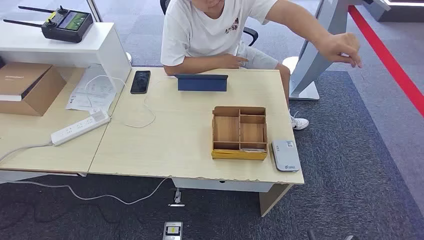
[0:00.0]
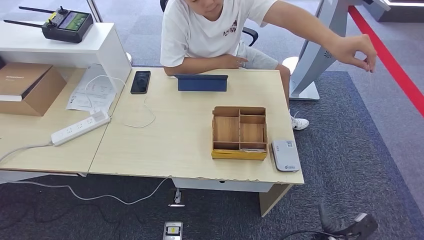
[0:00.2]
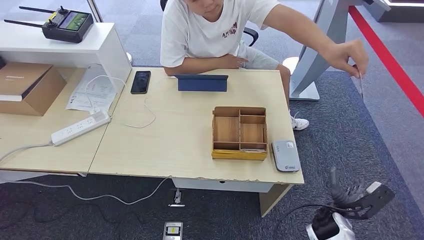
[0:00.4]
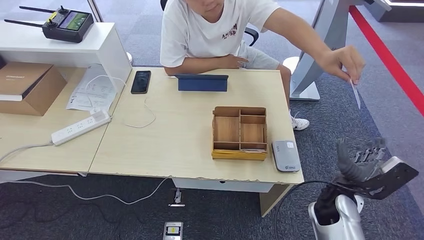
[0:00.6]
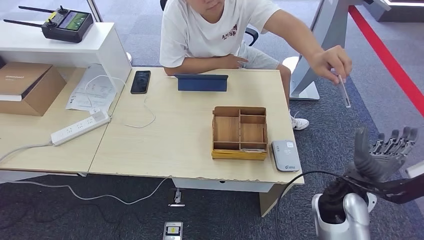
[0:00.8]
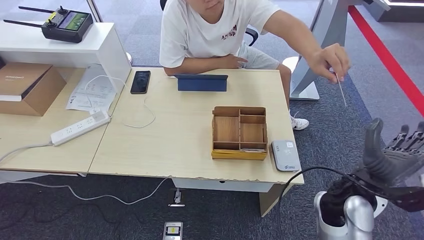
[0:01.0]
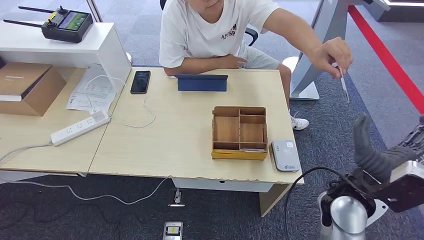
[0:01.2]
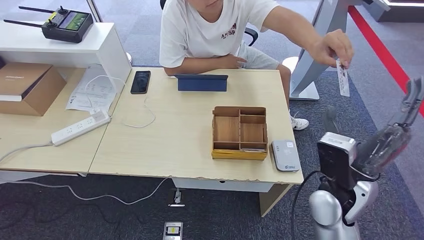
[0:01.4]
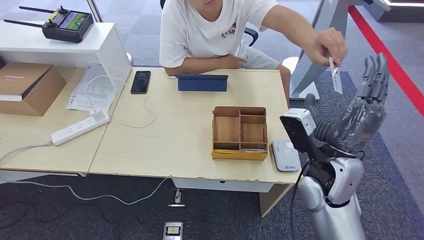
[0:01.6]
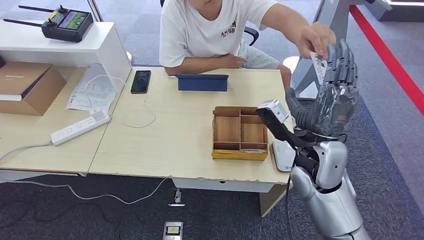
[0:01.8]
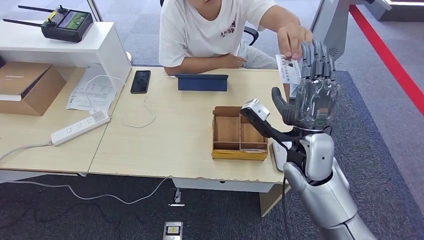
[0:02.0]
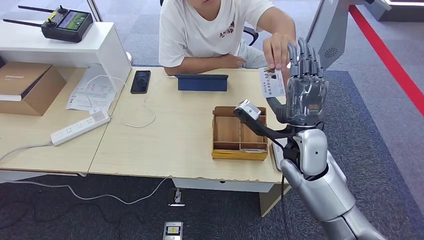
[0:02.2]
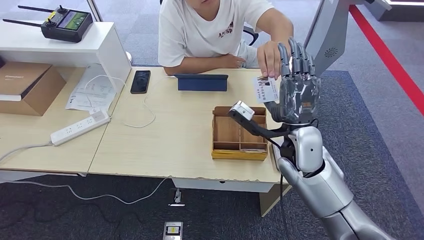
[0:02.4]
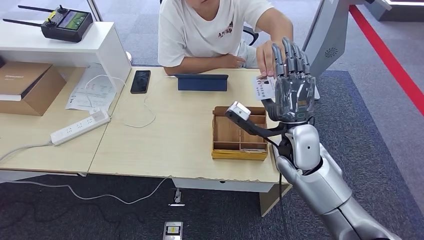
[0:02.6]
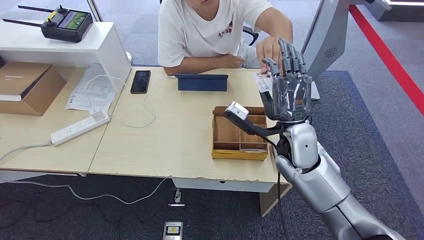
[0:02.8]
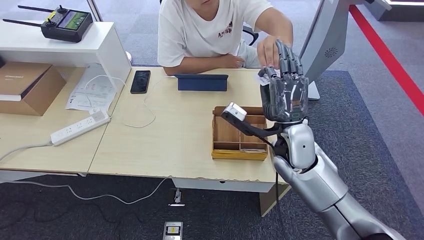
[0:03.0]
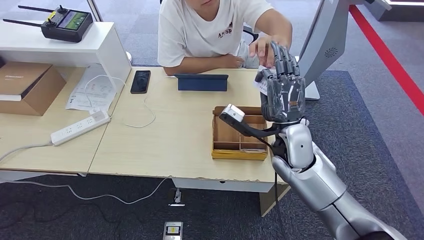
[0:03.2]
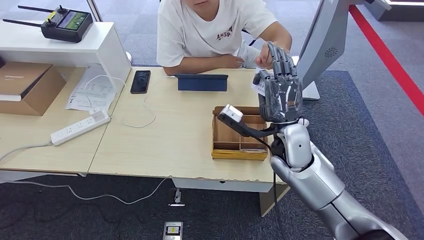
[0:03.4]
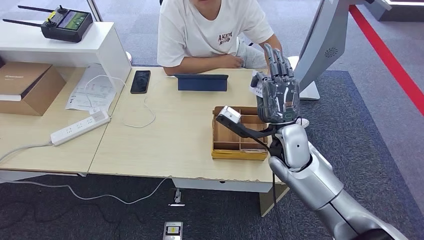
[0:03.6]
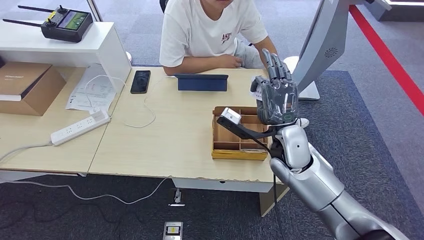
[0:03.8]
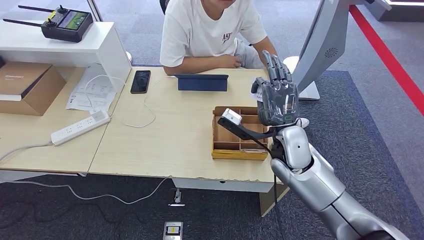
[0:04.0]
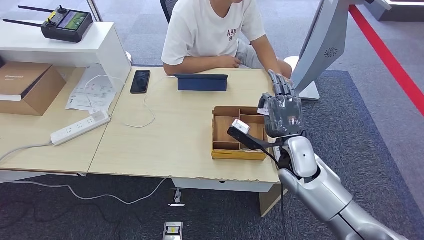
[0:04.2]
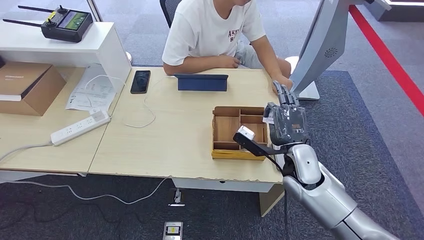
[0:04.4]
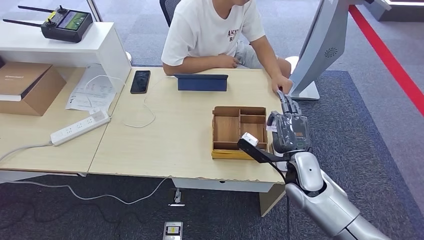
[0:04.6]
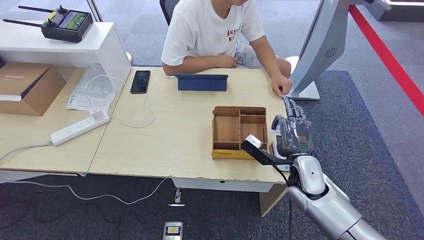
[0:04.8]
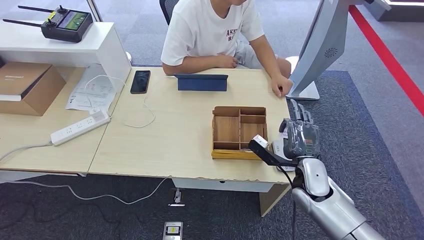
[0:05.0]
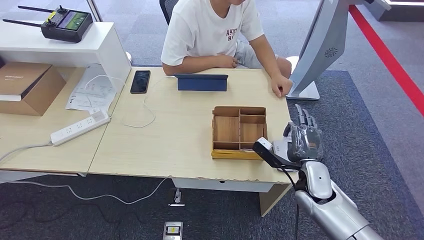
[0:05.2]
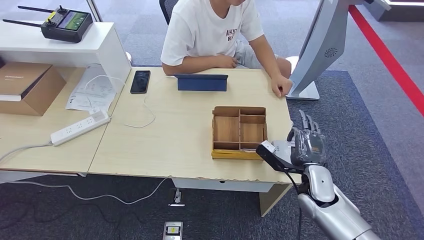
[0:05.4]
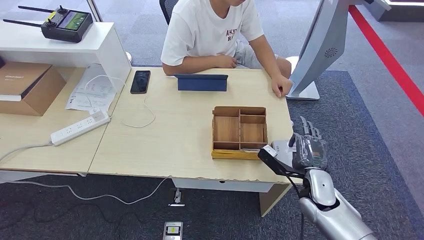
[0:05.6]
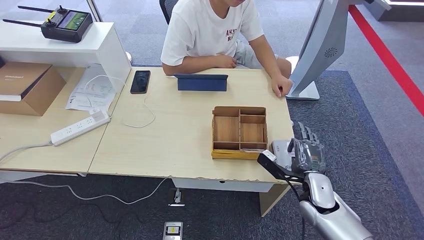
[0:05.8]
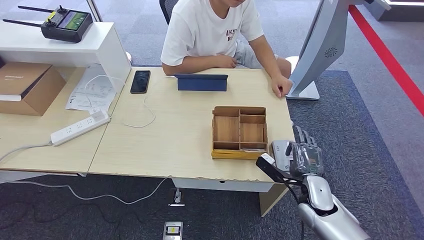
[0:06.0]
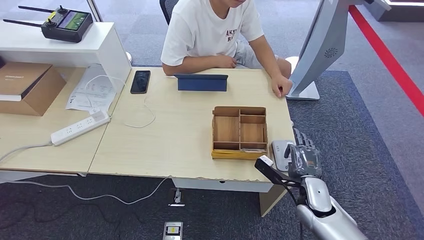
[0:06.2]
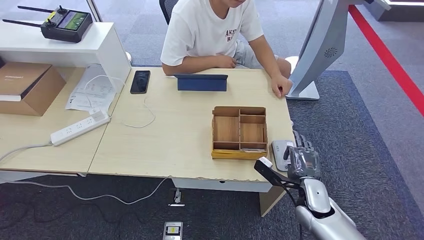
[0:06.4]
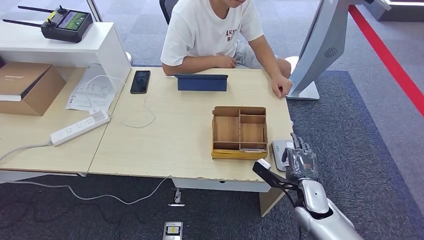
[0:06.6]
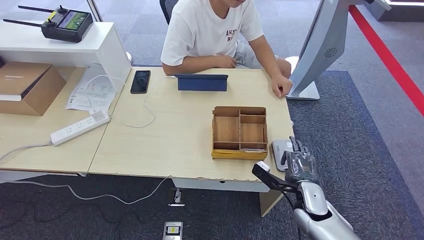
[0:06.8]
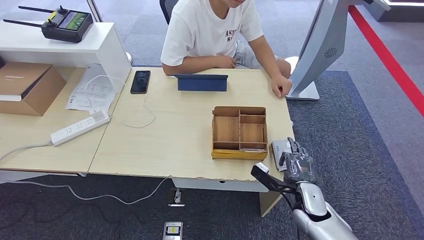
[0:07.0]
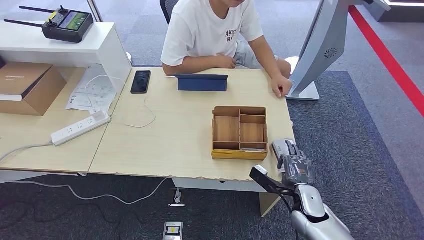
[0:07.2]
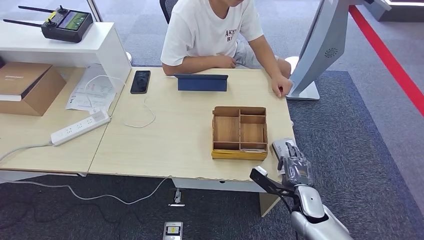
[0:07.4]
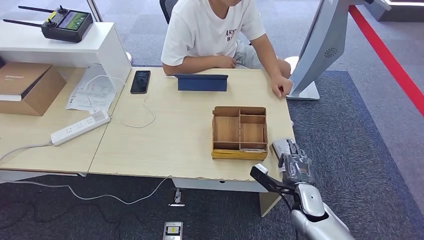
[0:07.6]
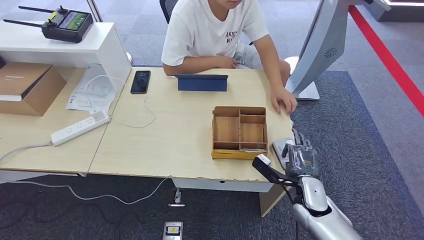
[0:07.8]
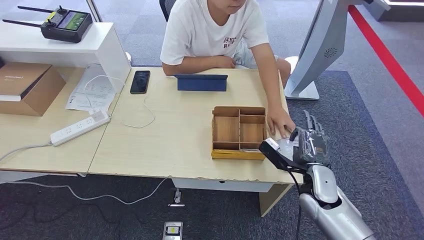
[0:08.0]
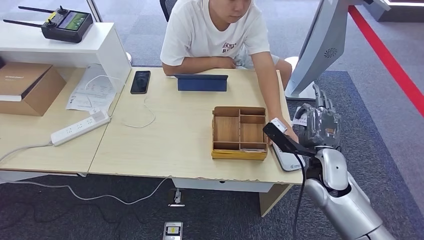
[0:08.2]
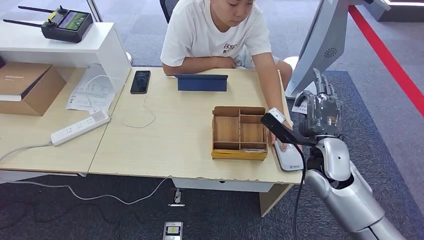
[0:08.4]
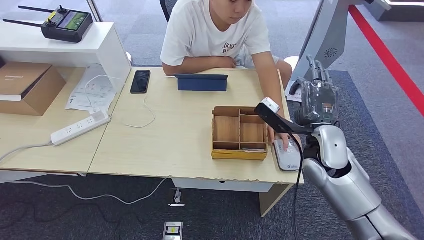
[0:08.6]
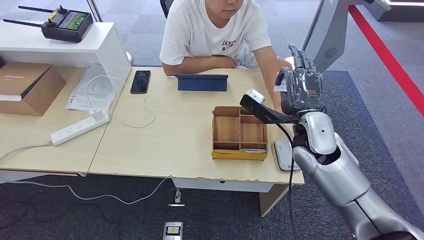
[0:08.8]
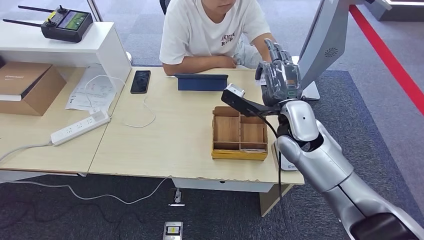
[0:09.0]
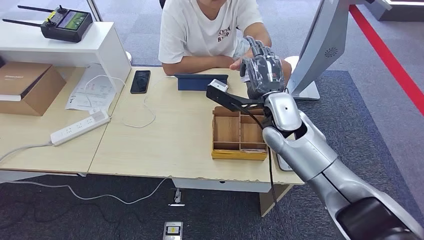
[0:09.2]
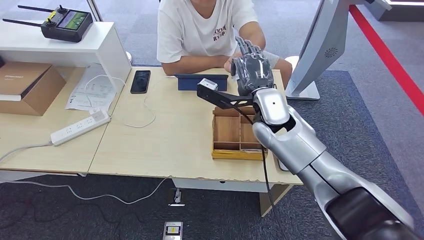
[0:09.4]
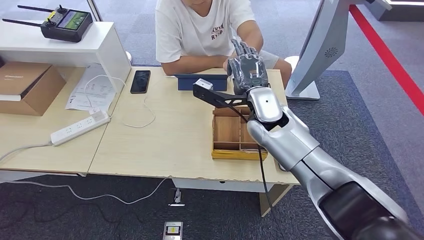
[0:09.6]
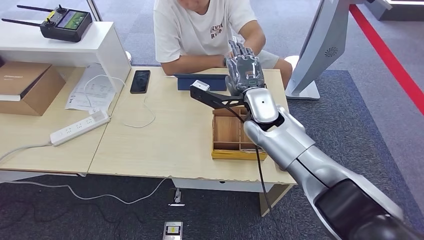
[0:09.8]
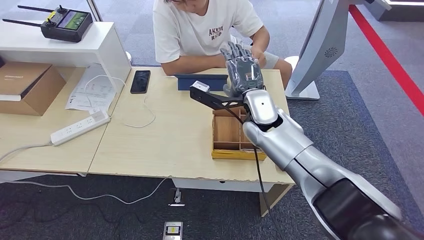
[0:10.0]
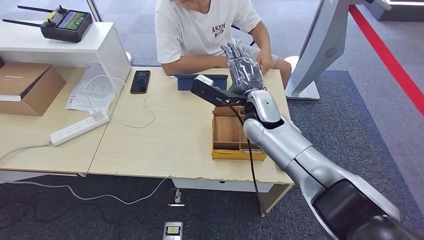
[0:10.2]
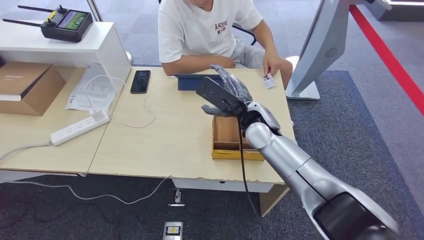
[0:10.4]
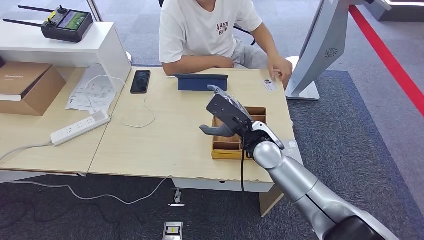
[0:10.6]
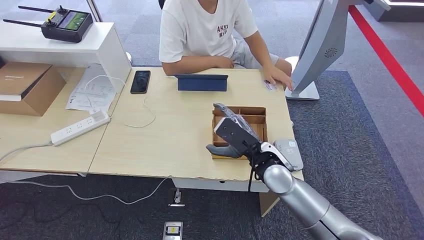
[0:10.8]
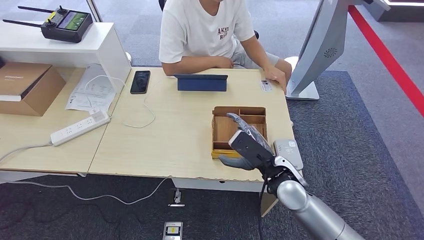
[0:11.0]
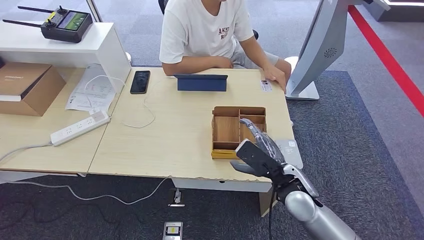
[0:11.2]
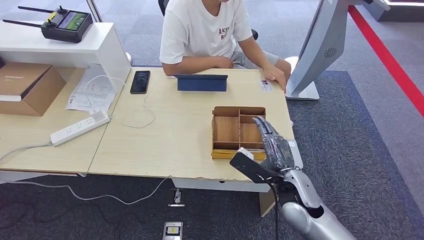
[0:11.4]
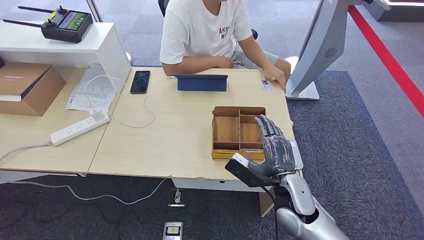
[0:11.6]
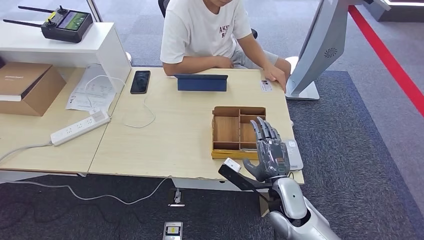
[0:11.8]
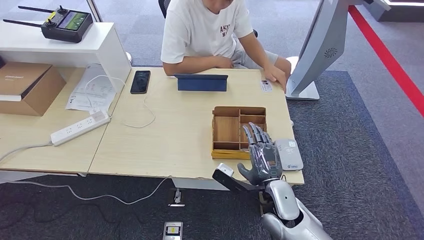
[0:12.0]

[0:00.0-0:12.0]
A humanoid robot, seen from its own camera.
Step, 0:00.0 to 0:03.8: Take the ID card from the person's hand.
Step, 0:04.2 to 0:07.0: Place the ID card on the card reader.
Step, 0:07.2 to 0:10.8: Hand the ID card to the person.
0:01.6 to 0:03.0: The right hand goes some 5 cm forward.
0:03.0 to 0:04.4: The right hand travels downward by approximately 5 cm.
0:04.4 to 0:06.0: The right hand heads downward, to the right and backward, covering approximately 15 cm.
0:06.0 to 0:07.6: The hands make only small movements.
0:07.6 to 0:09.0: The right hand heads upward and forward, covering approximately 25 cm.
0:09.0 to 0:10.4: The right hand moves to the left, approximately 5 cm.
0:10.4 to 0:12.0: The right hand travels backward and downward by about 20 cm.

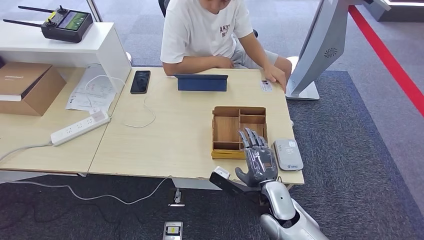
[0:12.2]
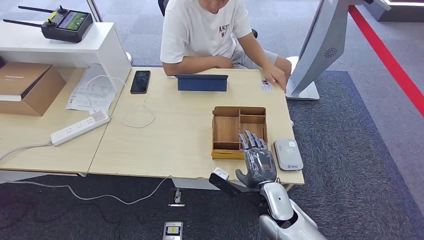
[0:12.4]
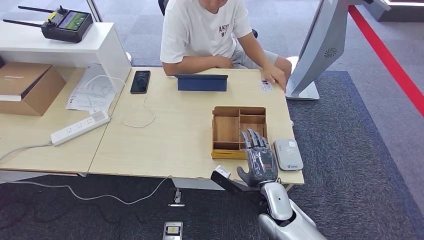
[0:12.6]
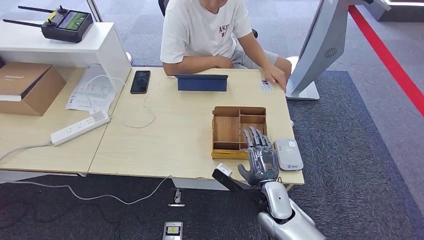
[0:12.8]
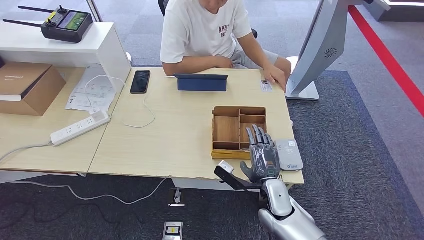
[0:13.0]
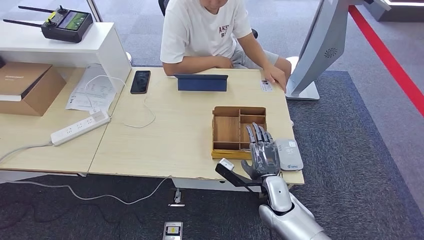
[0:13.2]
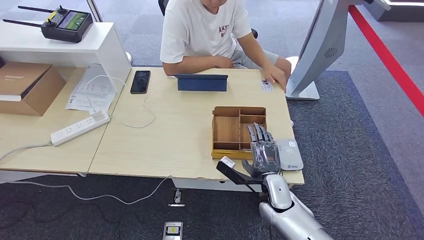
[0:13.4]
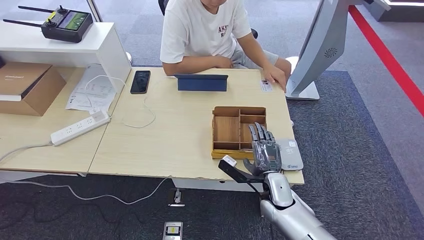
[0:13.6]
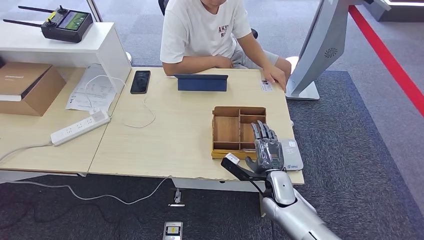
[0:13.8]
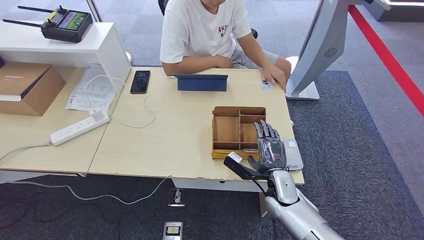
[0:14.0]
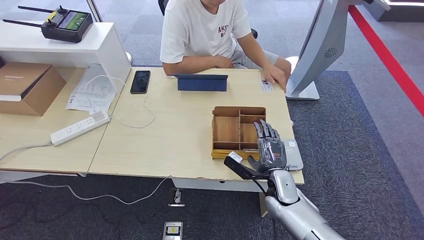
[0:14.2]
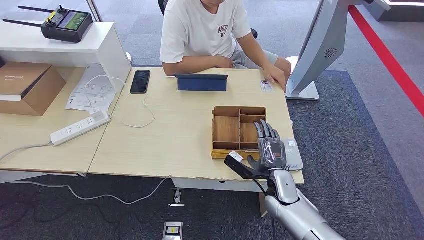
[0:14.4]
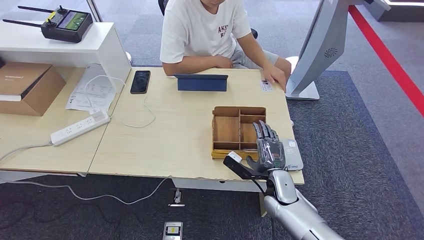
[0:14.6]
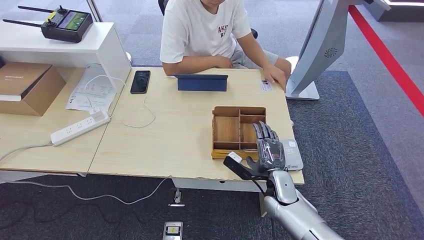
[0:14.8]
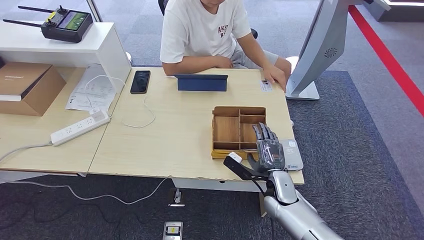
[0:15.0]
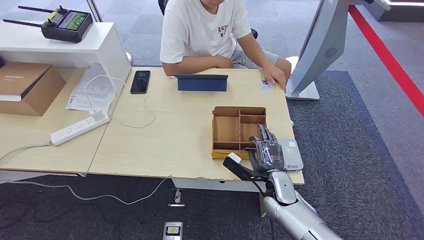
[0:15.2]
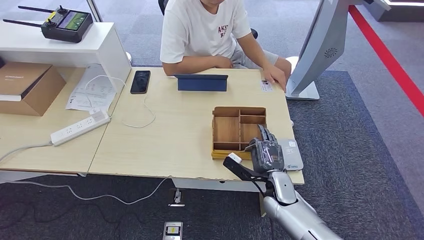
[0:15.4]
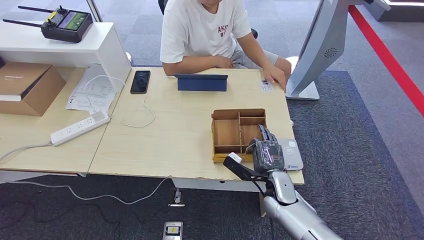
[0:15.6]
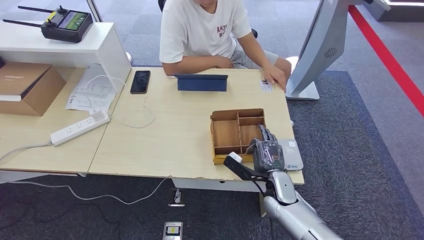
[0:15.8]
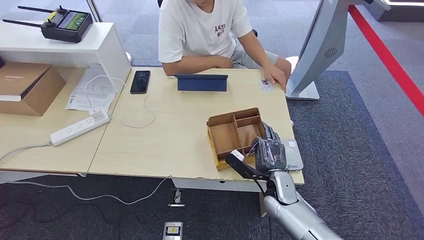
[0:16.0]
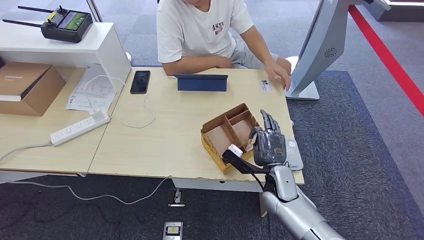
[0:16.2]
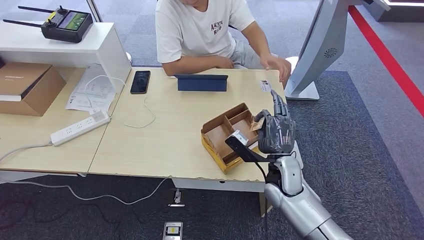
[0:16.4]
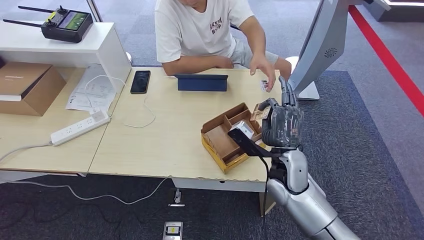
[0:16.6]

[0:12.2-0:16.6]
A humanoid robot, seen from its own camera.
Step, 0:12.2 to 0:16.2: Pick up the room key from the key card box.
0:12.2 to 0:13.6: The right hand moves about 5 cm.
0:13.6 to 0:15.2: The hands move only a little.
0:15.2 to 0:16.6: The right hand moves upward, approximately 10 cm.
